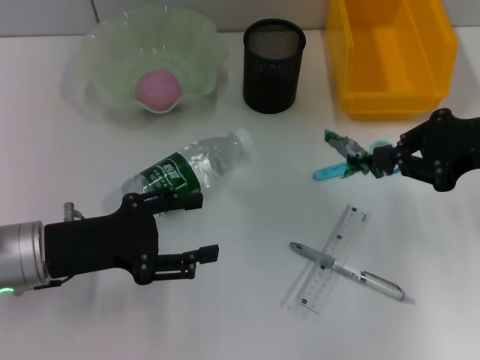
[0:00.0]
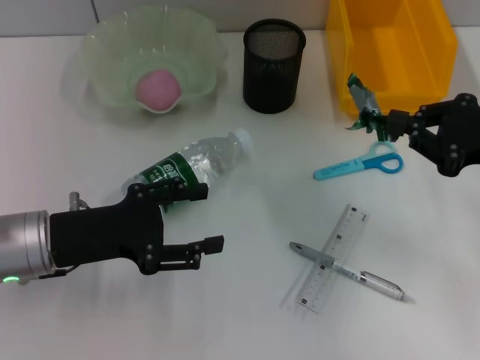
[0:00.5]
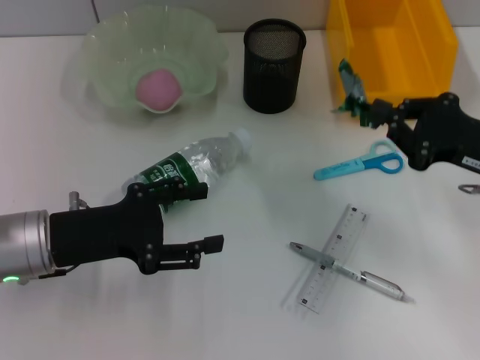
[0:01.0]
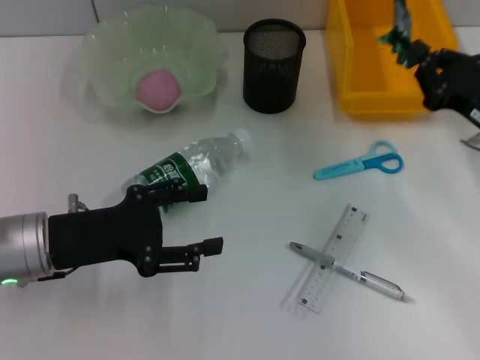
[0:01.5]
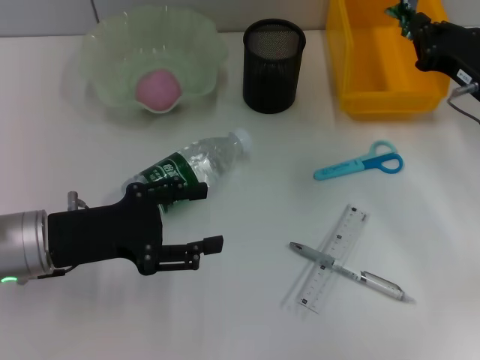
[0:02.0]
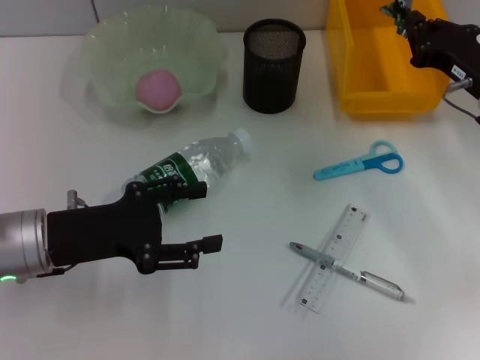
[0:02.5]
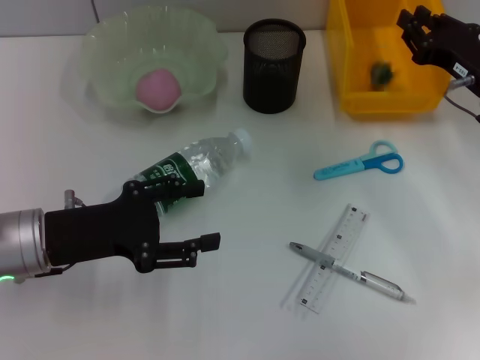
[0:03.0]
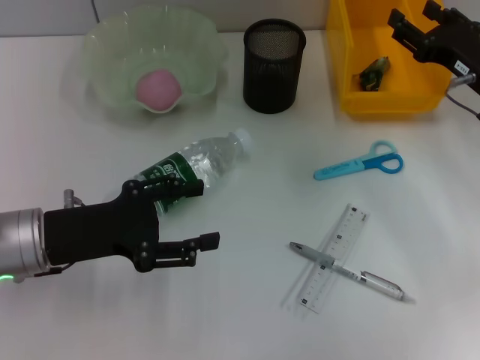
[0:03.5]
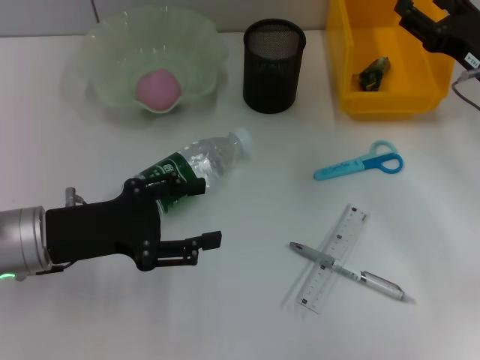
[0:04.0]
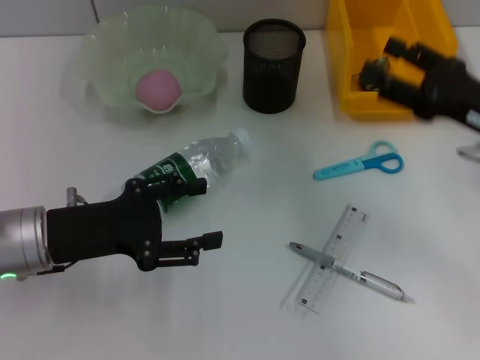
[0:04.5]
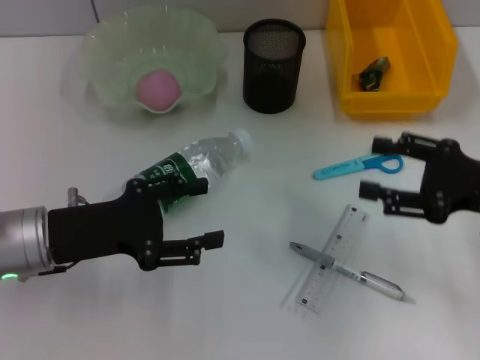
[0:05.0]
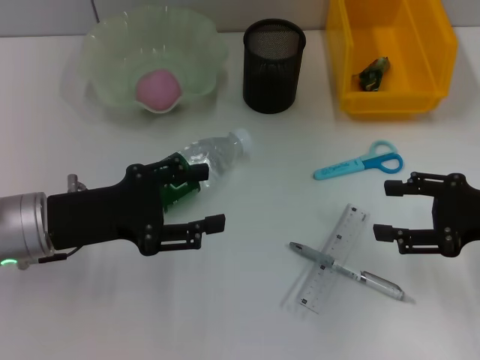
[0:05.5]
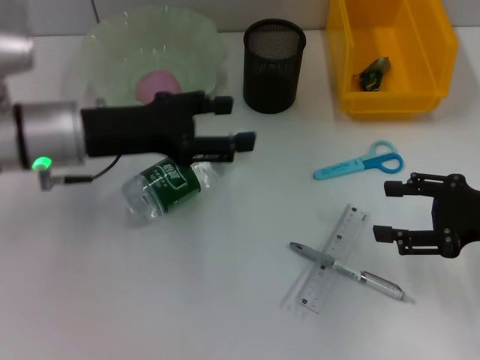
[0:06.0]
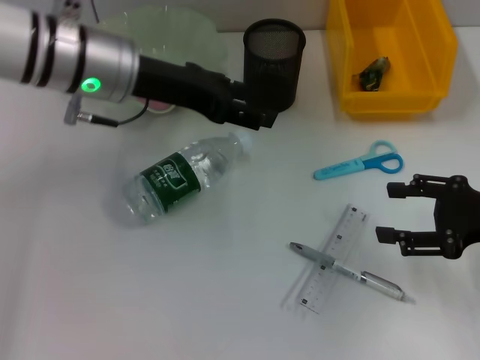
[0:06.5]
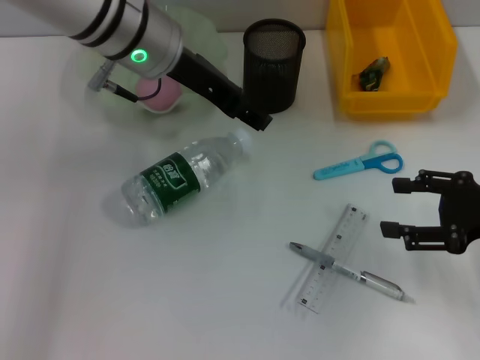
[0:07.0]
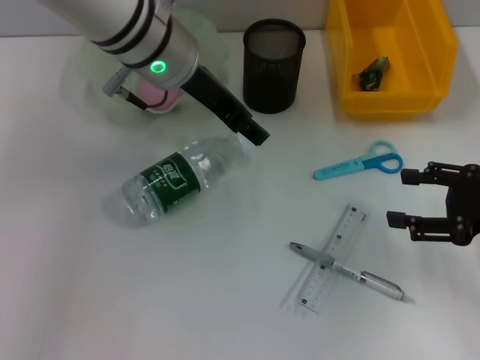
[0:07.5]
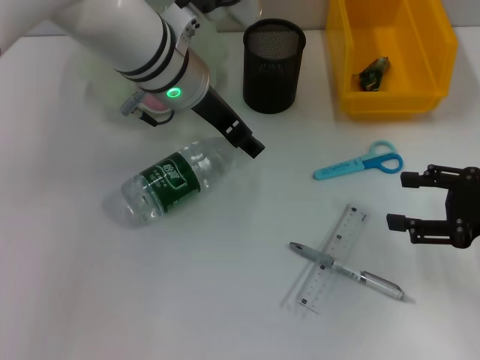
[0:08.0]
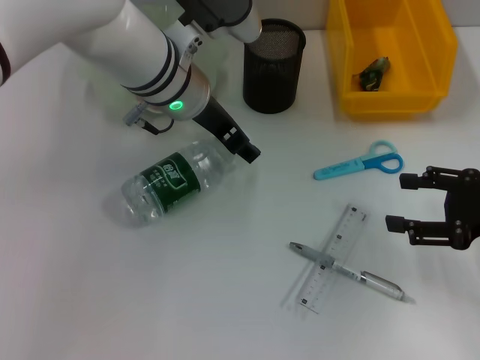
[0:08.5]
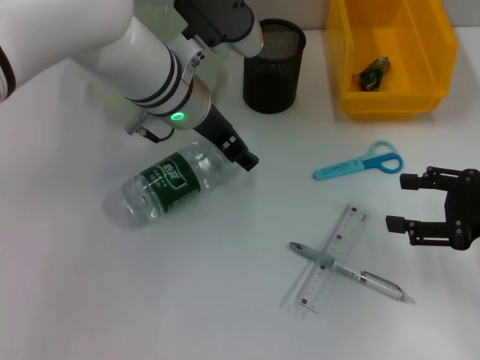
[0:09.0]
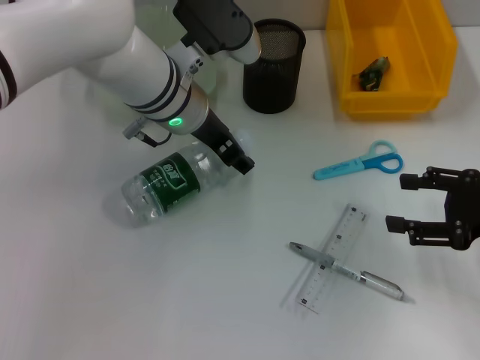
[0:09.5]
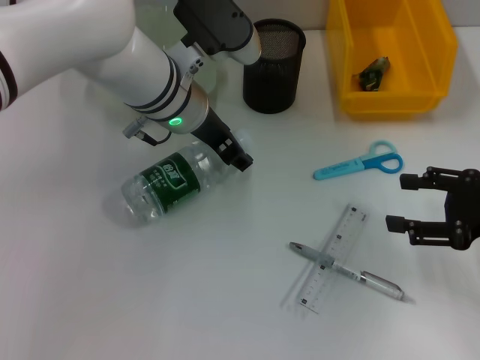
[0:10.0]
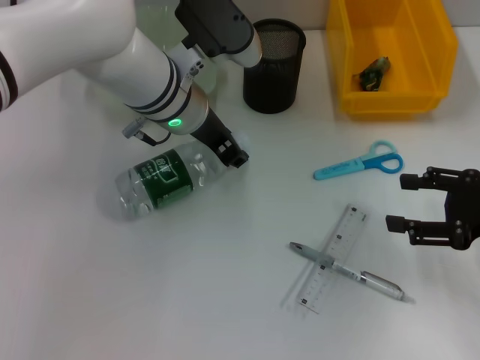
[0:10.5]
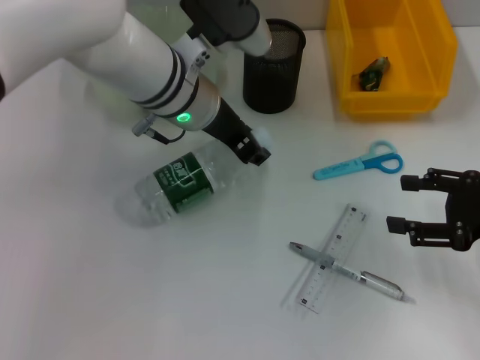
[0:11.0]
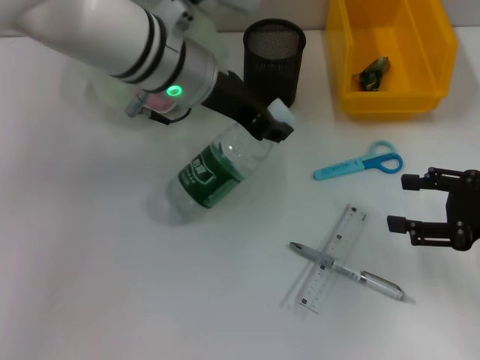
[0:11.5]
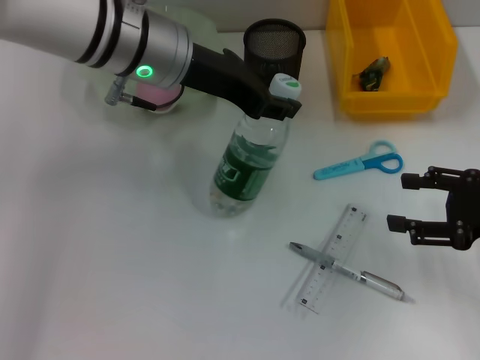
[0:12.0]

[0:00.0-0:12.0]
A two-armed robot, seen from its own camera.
Step, 0.0 to 3.0 s: Place the plastic into the trash can with the right hand.
Step, 3.5 to 10.5 s: Grab the water bottle with the left hand.
0.0 to 2.0 s: The right gripper shifts about 10 cm downward.
2.0 to 4.0 s: The right gripper opens up.
4.0 to 6.0 s: The right gripper goes roughly 10 cm backward. Meanwhile the left gripper heads forward and upward, covering about 10 cm.
6.0 to 8.0 s: The left gripper shifts roughly 15 cm to the right and forward.
8.0 to 10.0 s: The grippers make only small movements.
10.0 to 12.0 s: The left gripper travels upward by approximately 5 cm, and closes.

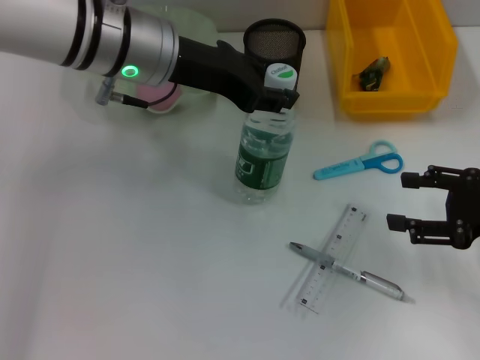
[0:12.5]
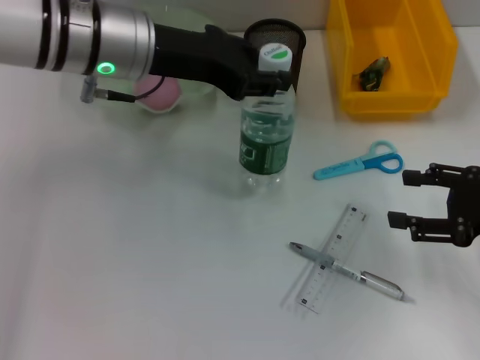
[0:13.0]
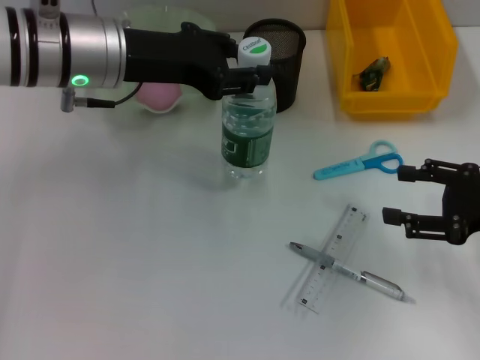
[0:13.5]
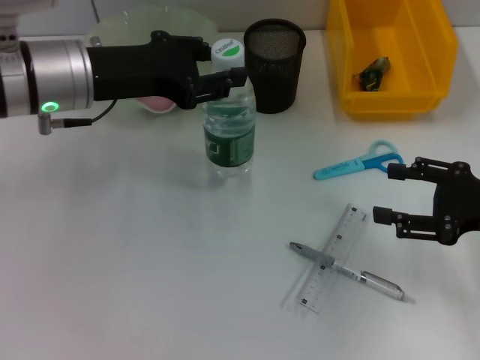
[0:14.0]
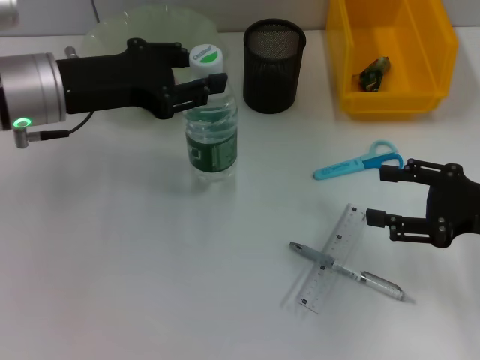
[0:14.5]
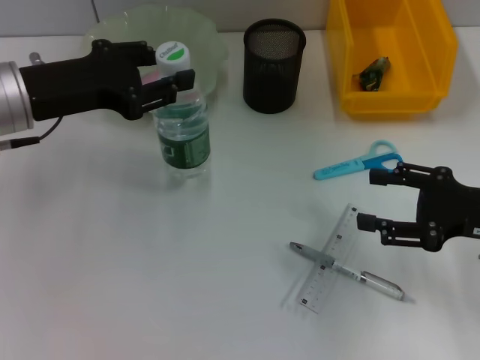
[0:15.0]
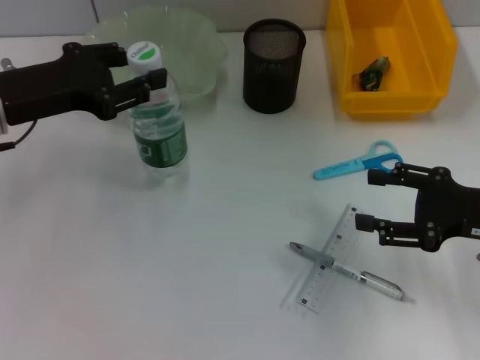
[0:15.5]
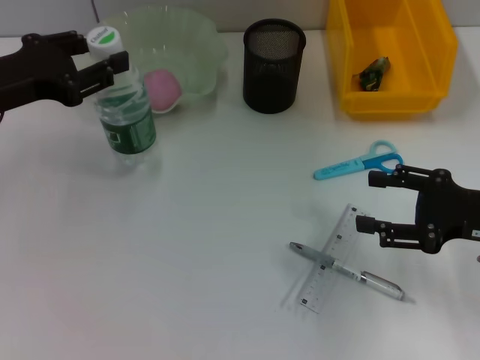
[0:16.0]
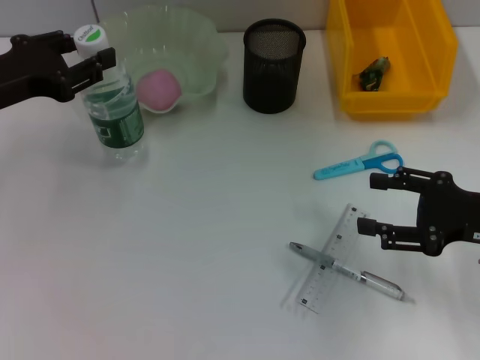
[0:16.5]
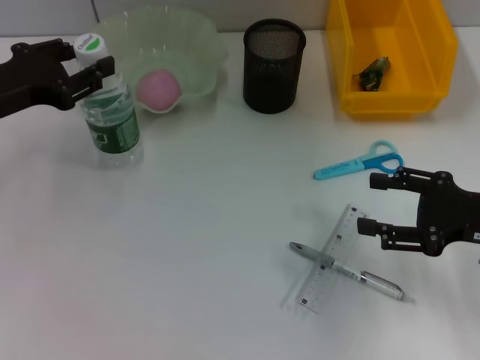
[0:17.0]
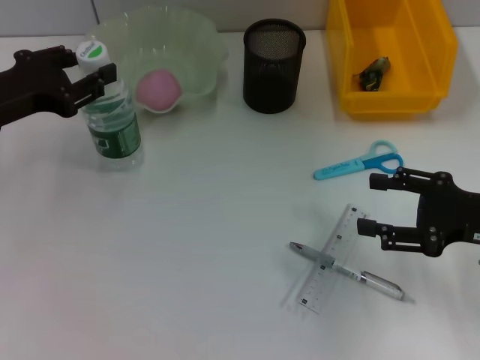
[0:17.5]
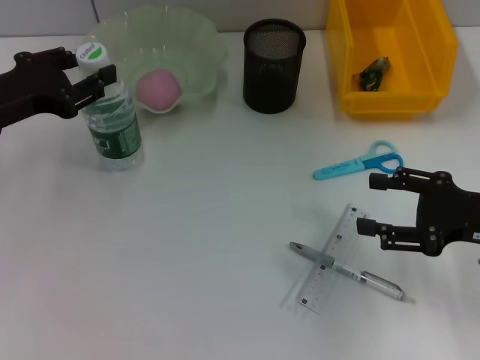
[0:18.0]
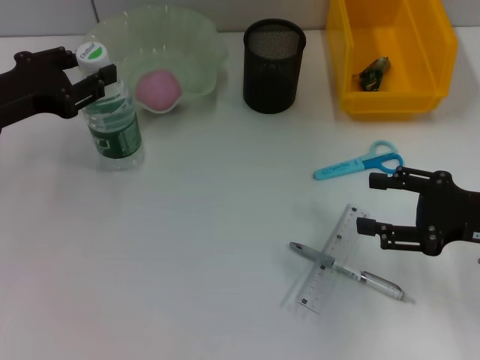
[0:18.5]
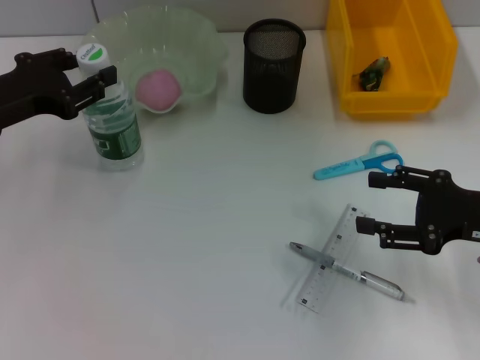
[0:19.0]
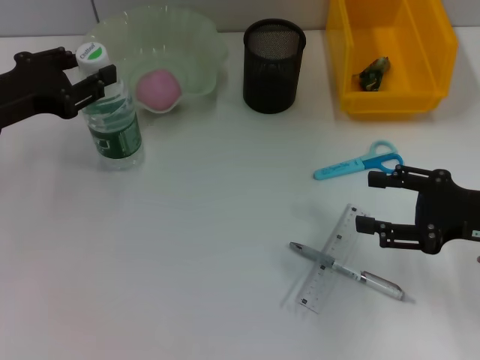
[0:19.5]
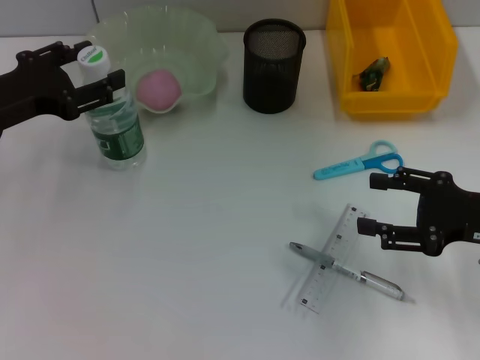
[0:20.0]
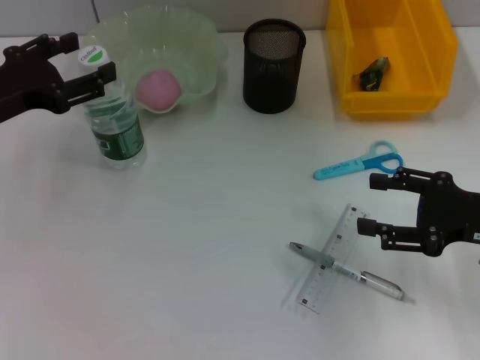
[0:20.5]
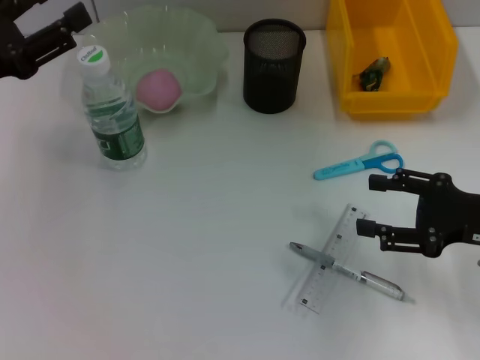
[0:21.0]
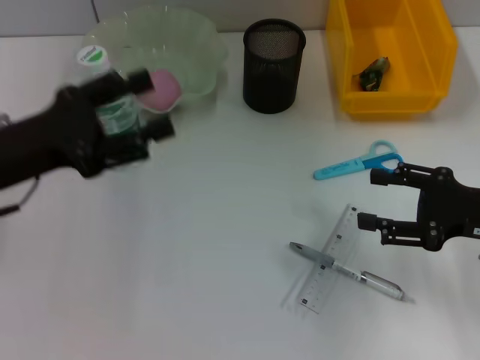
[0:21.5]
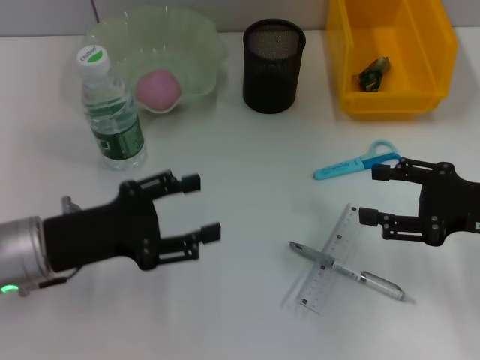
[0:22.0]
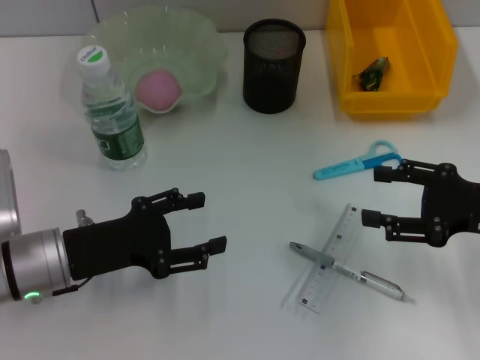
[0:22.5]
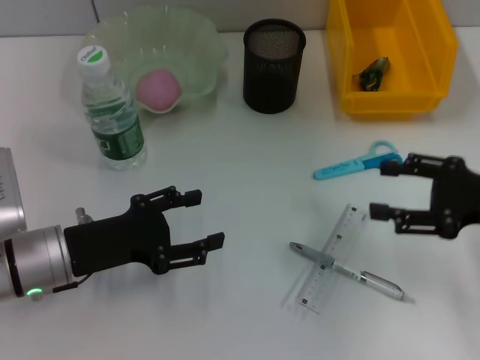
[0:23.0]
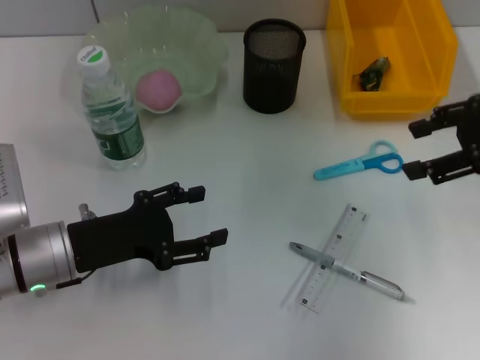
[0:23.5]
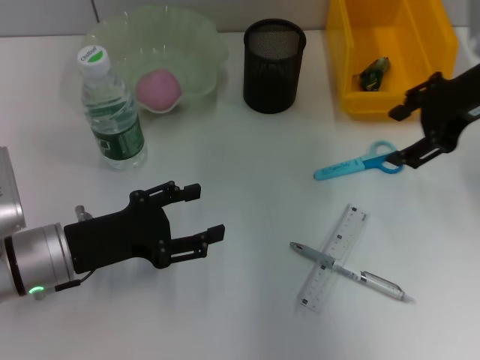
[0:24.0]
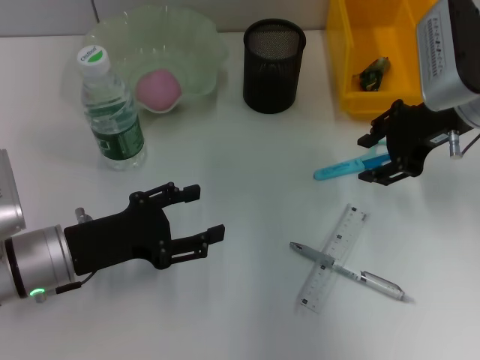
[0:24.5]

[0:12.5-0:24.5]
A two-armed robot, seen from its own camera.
Step, 12.5 to 20.5 s: Place the water bottle on the table with the left hand.
12.5 to 14.5 s: The left gripper is displaced to the left by about 10 cm.
14.5 to 16.5 s: The left gripper heads to the left, covering some 10 cm.
16.5 to 18.5 s: There are only small adjustments of the grippers.
18.5 to 20.5 s: The left gripper opens its fingers.
20.5 to 22.5 s: The left gripper shifts about 15 cm downward, backward and to the right.
22.5 to 24.5 s: The right gripper goes about 15 cm forward, to the left and upward.

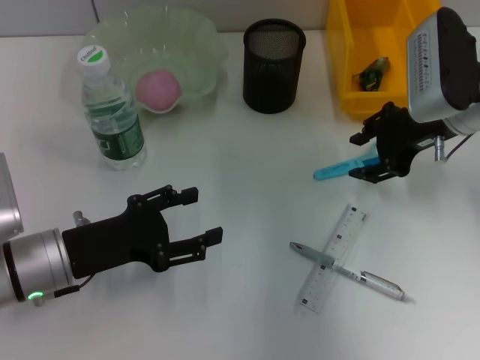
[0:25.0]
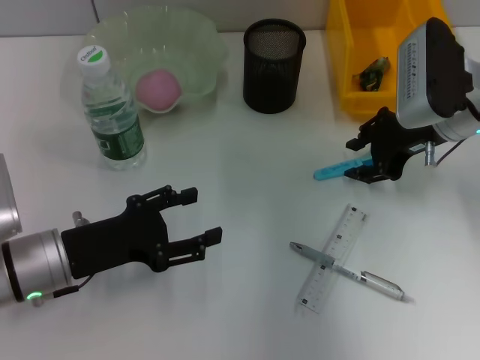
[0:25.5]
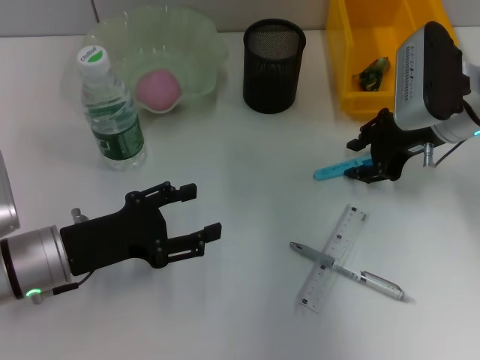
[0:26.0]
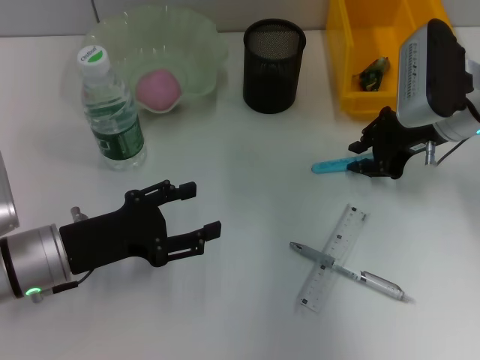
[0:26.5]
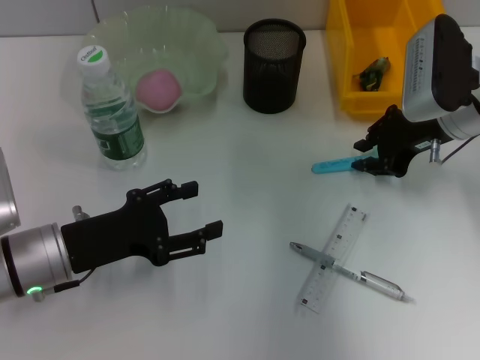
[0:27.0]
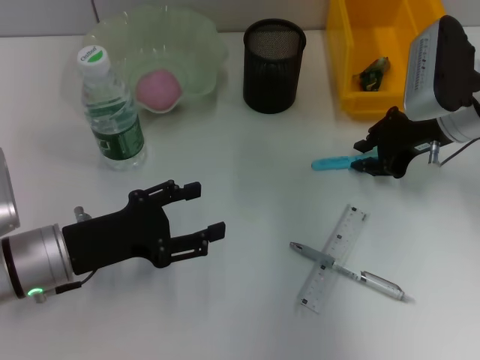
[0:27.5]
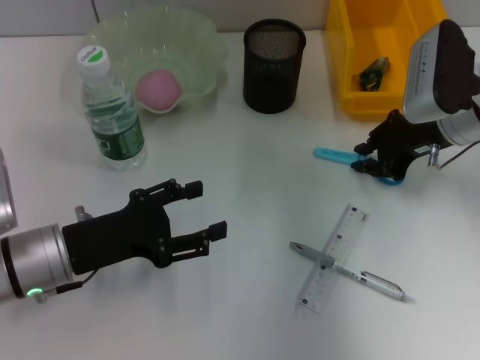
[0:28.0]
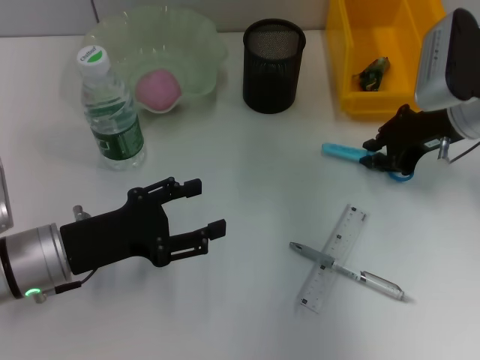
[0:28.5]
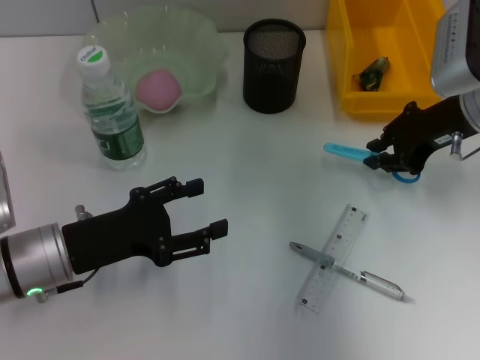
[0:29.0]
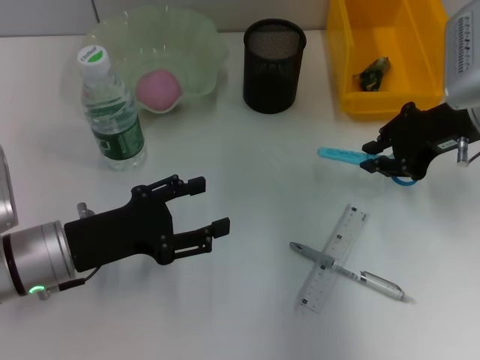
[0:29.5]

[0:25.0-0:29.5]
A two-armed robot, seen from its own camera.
Step, 25.0 to 28.0 s: Grab the blue scissors with the right hand.
25.0 to 29.5 s: The grippers move only a little.
